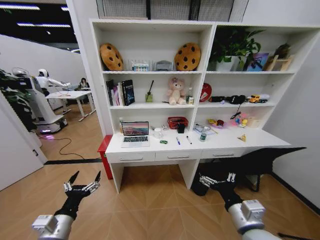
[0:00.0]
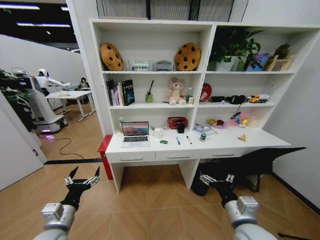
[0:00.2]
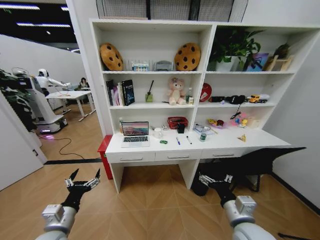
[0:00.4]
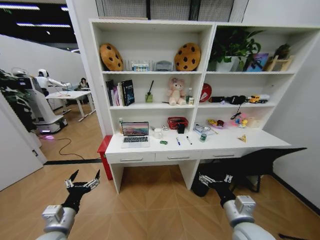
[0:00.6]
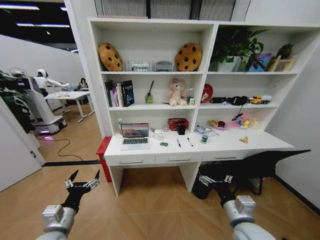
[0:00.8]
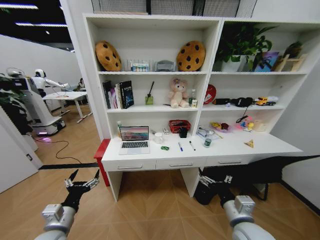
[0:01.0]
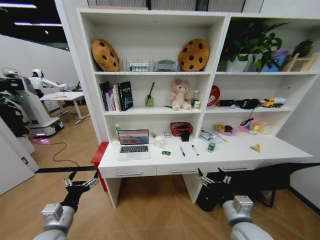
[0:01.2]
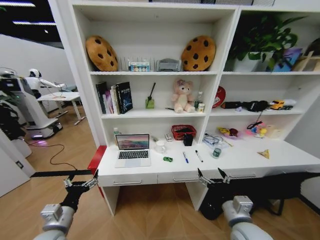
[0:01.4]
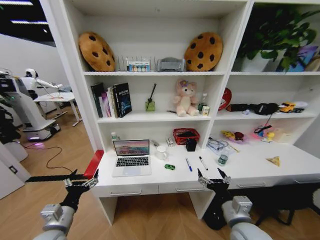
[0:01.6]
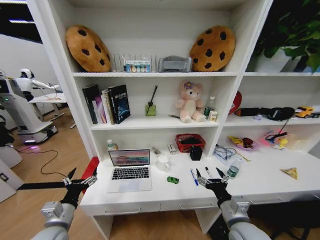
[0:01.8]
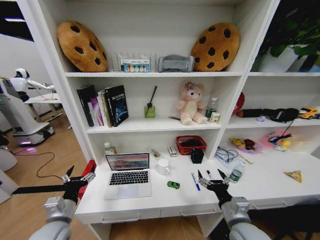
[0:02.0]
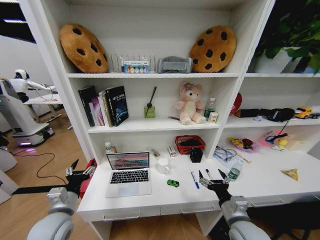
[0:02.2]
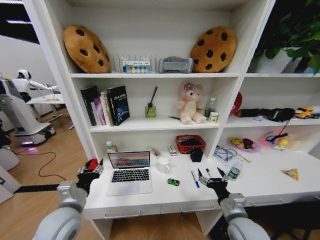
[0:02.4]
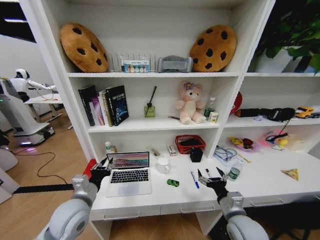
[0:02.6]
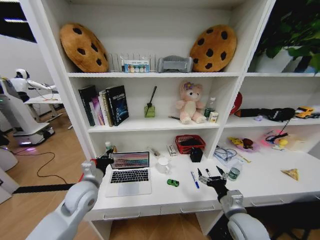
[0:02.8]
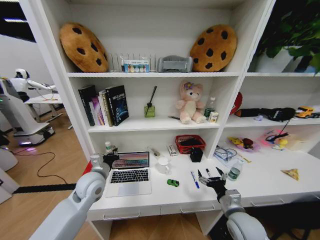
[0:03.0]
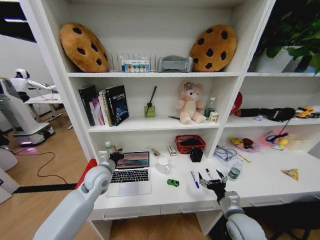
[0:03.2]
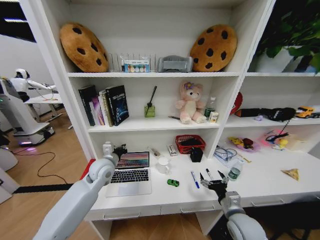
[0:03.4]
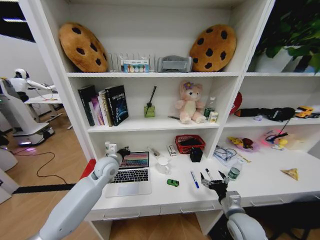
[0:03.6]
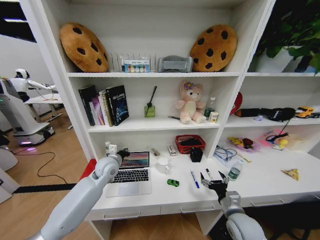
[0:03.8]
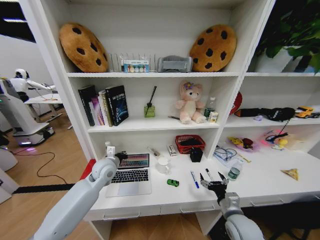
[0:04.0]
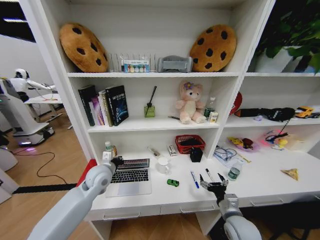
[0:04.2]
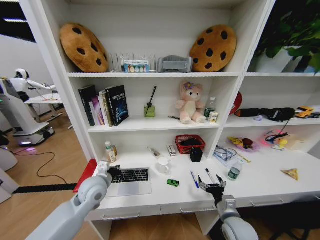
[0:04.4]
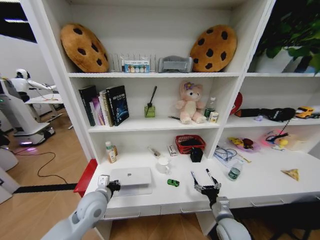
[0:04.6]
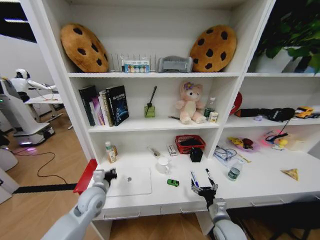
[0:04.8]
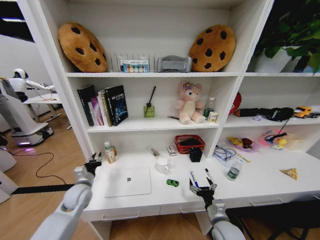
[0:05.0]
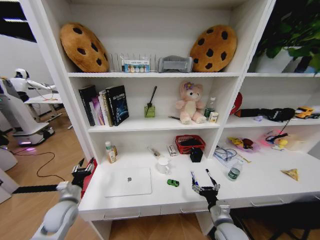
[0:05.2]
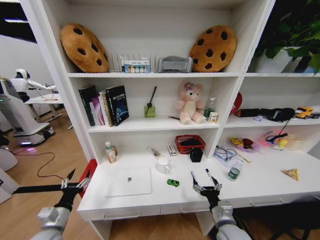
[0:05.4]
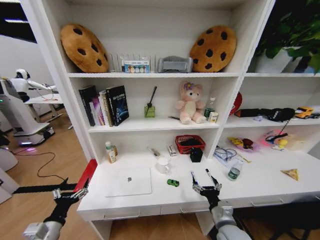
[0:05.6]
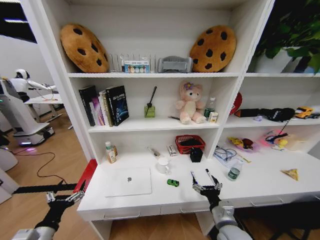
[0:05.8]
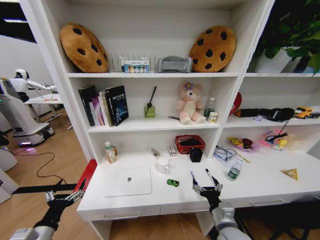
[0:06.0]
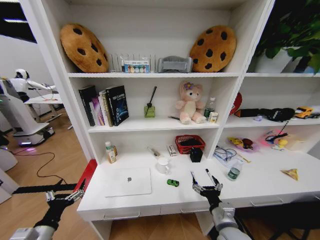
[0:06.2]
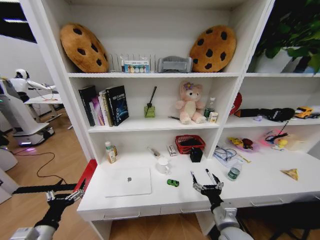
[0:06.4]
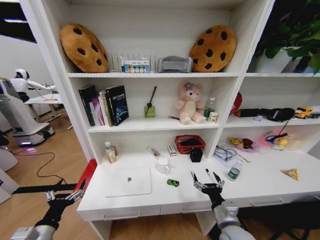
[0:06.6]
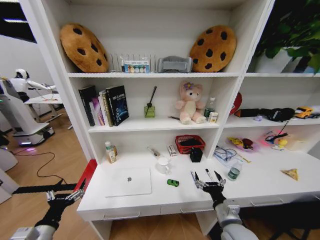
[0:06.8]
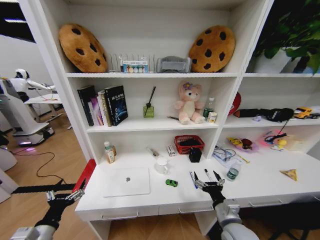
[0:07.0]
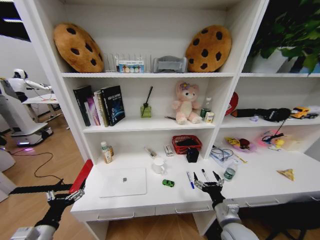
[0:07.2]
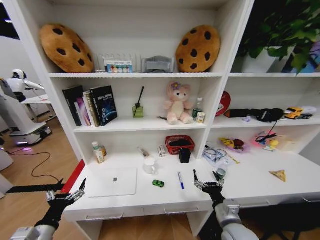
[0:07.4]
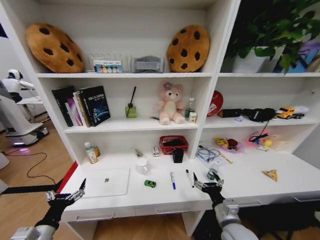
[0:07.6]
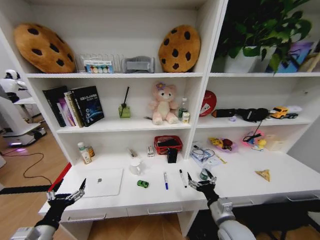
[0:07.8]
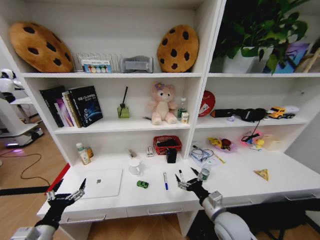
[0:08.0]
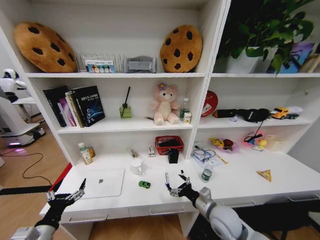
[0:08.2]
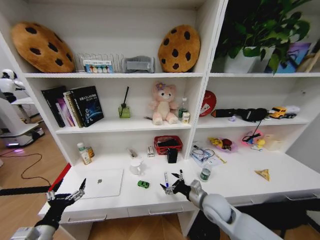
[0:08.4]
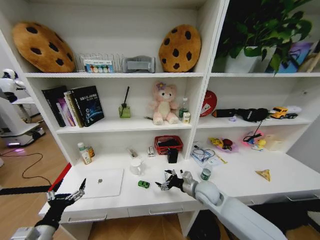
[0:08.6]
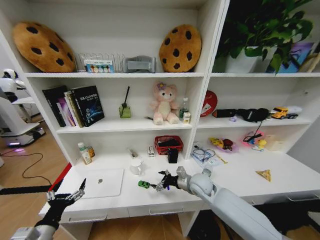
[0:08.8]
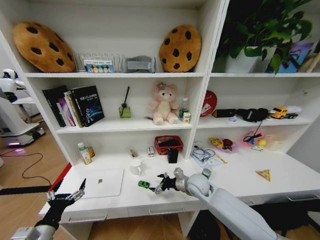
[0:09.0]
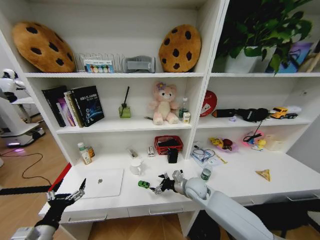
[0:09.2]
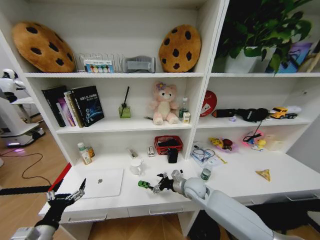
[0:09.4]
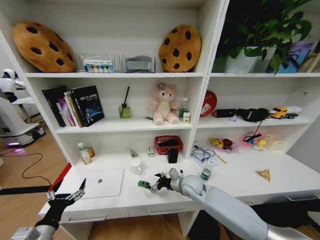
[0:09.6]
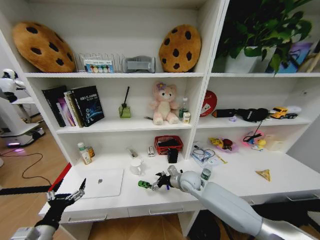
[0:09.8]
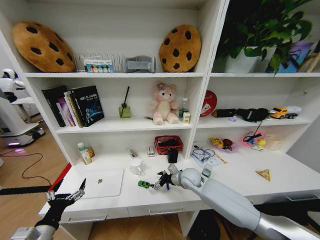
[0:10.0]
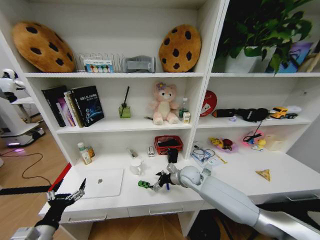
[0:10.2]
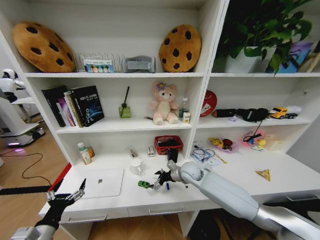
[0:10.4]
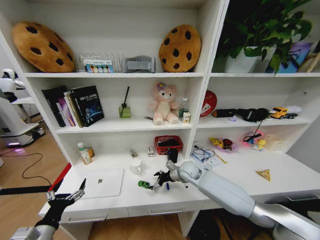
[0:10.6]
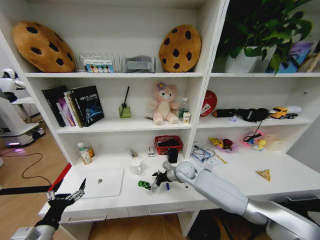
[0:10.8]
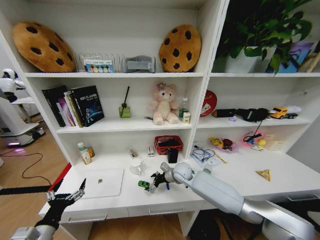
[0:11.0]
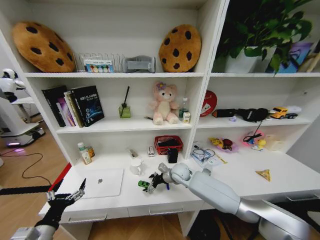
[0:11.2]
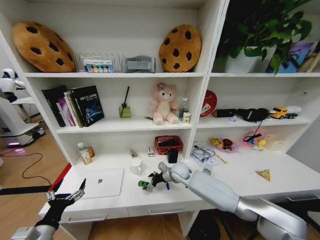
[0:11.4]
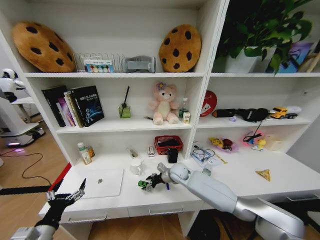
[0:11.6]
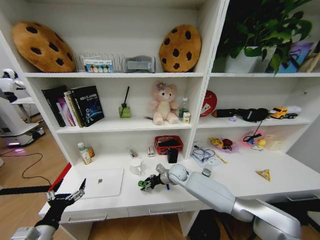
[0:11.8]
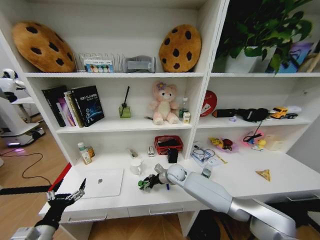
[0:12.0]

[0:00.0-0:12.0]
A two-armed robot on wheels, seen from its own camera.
Task of the whole recording: Organize the objects on the table.
0:01.6 to 0:03.0: The right gripper changes place by some 5 cm, while the left gripper heads forward and to the right, covering some 20 cm, and closes up.
0:03.0 to 0:04.4: The left gripper goes forward and returns, some 10 cm each way.
0:04.4 to 0:06.0: The left gripper goes forward and backward, roughly 20 cm each way, reversing 2 times, and opens its fingers; the right gripper shifts some 5 cm to the left.
0:07.6 to 0:09.0: The right gripper is displaced forward by about 20 cm.
0:09.0 to 0:10.4: The right gripper goes about 5 cm forward.
0:10.4 to 0:12.0: The right gripper is displaced to the left by roughly 5 cm.

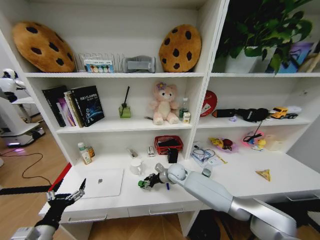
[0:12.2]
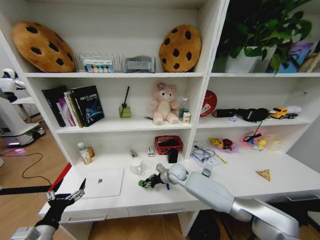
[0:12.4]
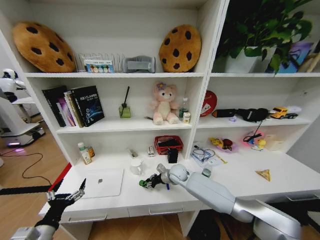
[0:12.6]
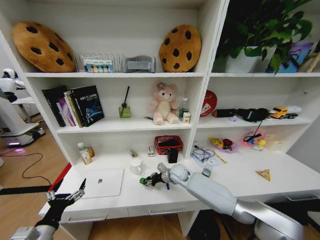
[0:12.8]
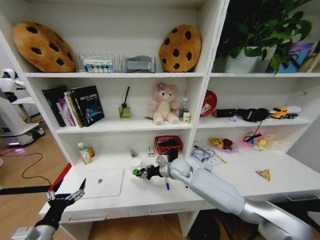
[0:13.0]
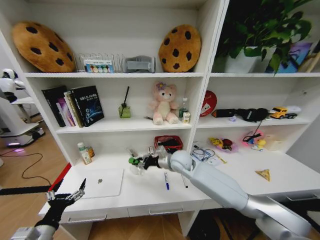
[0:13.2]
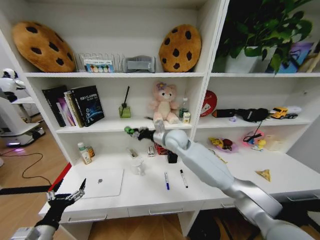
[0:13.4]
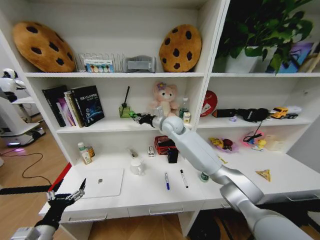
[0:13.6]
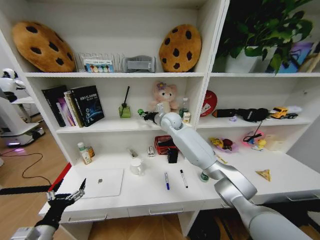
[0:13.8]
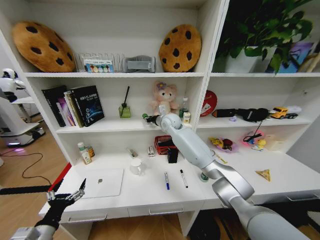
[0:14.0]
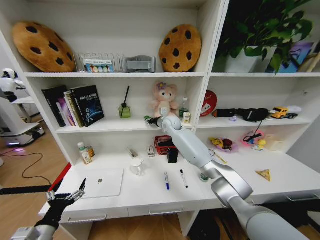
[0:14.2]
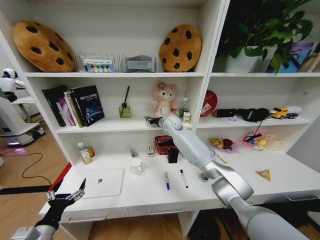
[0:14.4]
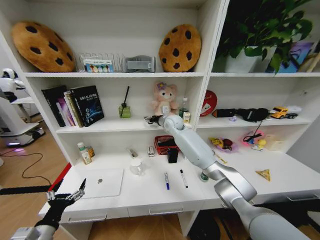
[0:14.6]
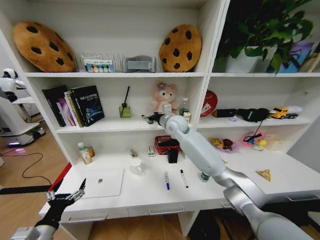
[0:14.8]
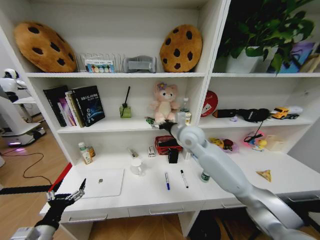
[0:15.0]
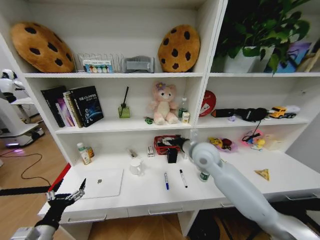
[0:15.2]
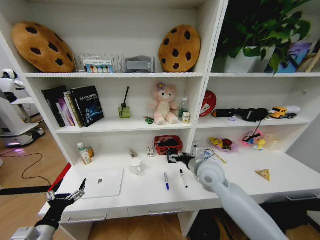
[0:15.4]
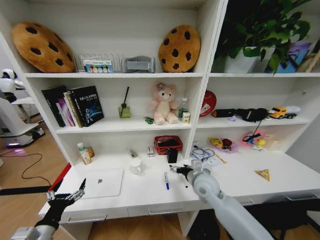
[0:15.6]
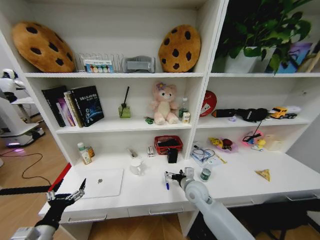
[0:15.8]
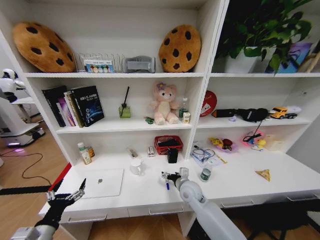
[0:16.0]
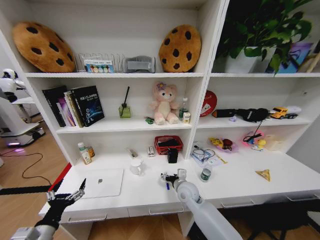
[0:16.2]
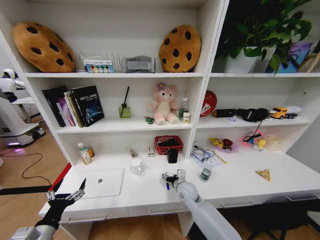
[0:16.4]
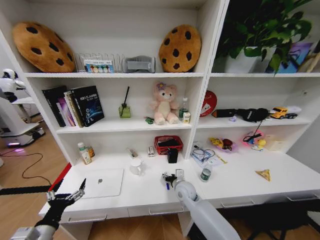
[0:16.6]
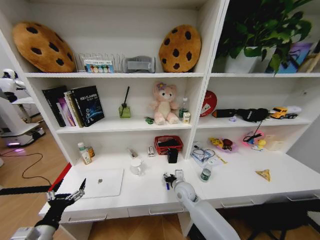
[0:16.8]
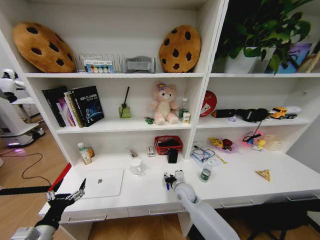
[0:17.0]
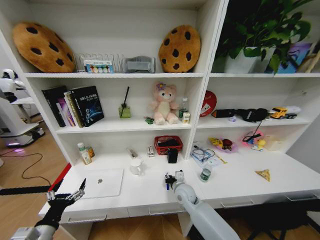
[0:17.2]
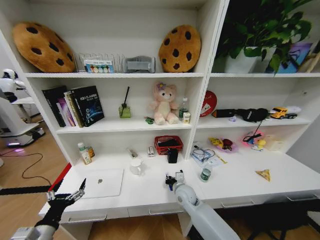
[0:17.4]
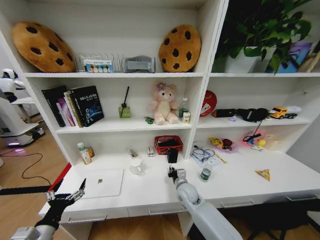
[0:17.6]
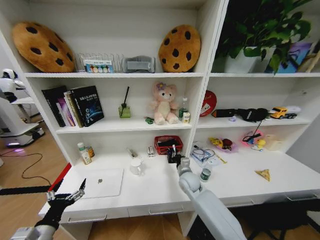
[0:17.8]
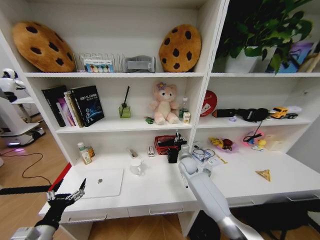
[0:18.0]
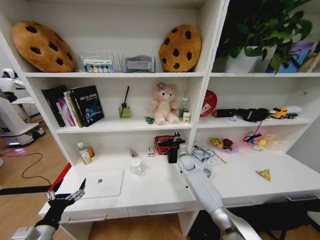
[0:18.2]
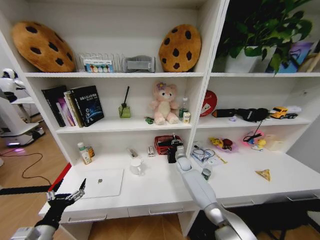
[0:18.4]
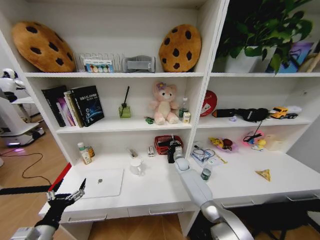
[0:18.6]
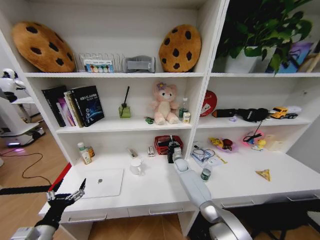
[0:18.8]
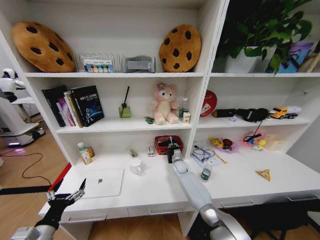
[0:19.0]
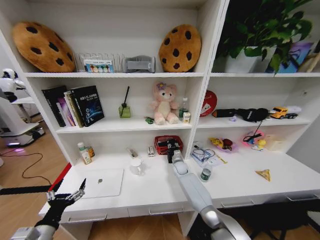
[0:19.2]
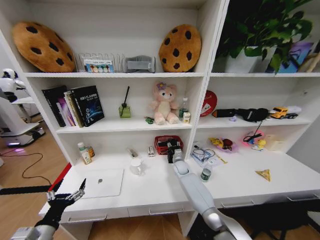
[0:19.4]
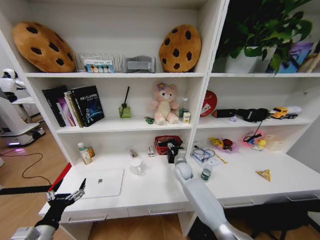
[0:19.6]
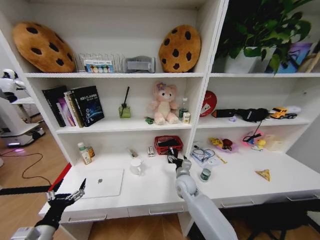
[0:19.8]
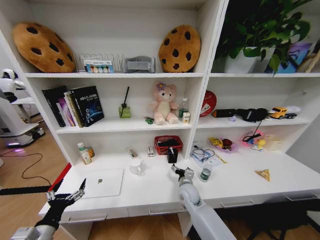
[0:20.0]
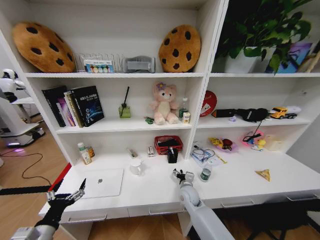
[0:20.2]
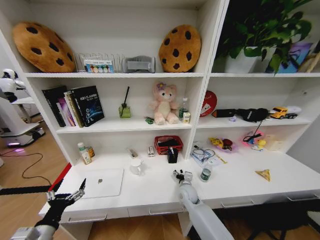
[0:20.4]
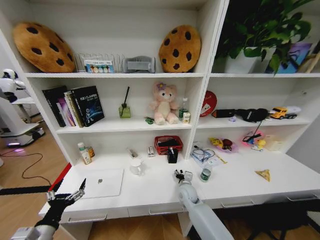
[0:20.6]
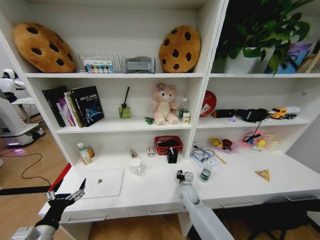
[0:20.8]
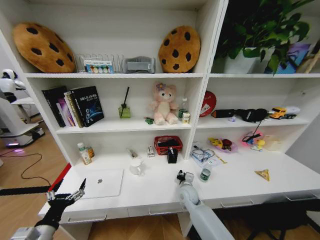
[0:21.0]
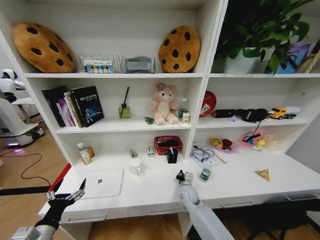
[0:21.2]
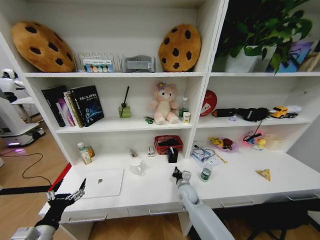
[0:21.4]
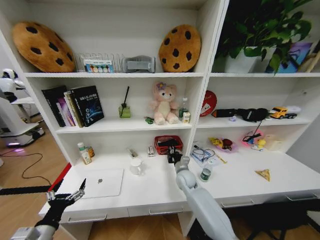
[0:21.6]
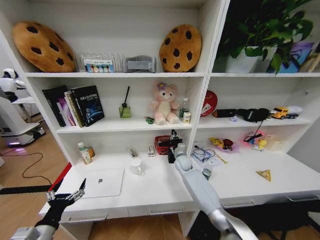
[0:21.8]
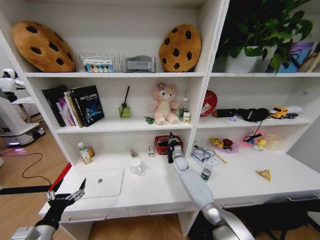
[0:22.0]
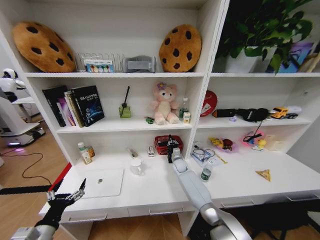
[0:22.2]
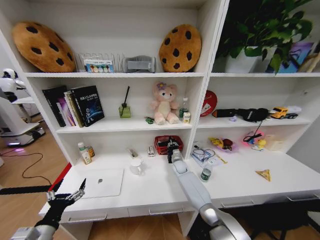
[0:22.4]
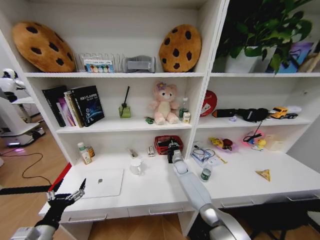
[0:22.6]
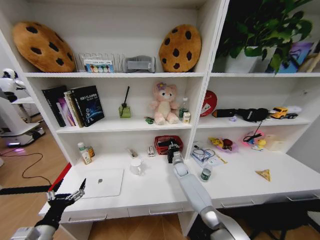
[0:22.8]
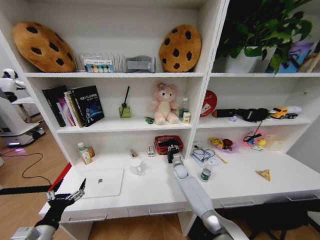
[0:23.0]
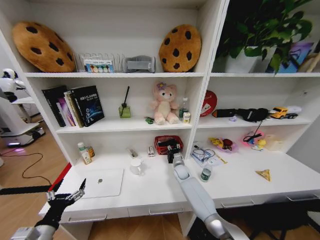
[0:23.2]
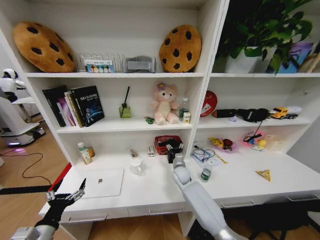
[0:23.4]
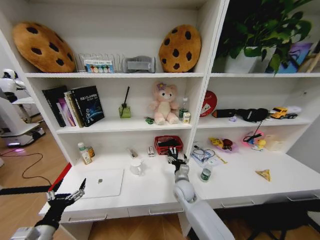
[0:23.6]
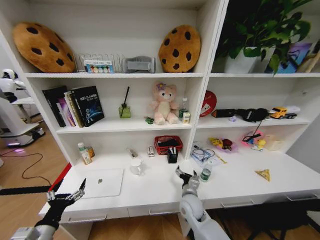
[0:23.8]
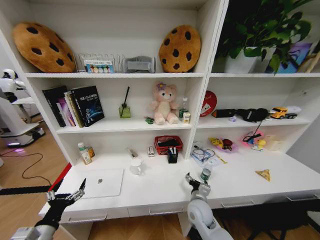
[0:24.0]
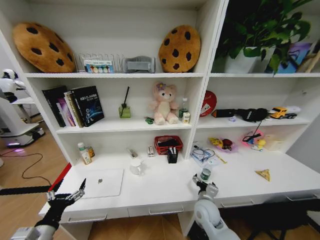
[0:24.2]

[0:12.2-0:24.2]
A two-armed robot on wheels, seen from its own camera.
Task of the whole recording: Organize the objects on the table.
0:12.2 to 0:13.8: The right gripper heads upward and forward, covering some 30 cm.
0:13.8 to 0:15.2: The right gripper goes roughly 20 cm backward and to the right, and opens its fingers.
0:15.2 to 0:16.6: The right gripper is displaced downward by approximately 25 cm.
0:16.6 to 0:18.2: The right gripper is displaced forward by roughly 15 cm, and closes up.
0:18.2 to 0:19.8: The right gripper heads backward, covering about 15 cm, and opens its fingers.
0:19.8 to 0:21.2: The right gripper is displaced downward by roughly 5 cm, and closes up.
0:21.2 to 0:22.6: The right gripper is displaced forward by about 15 cm.
0:22.6 to 0:24.2: The right gripper shifts roughly 25 cm backward, and opens.
